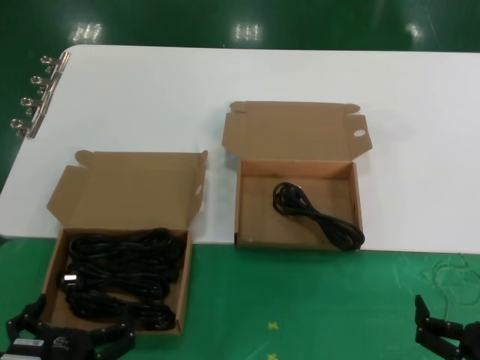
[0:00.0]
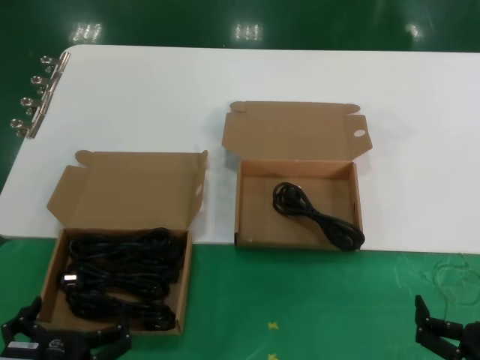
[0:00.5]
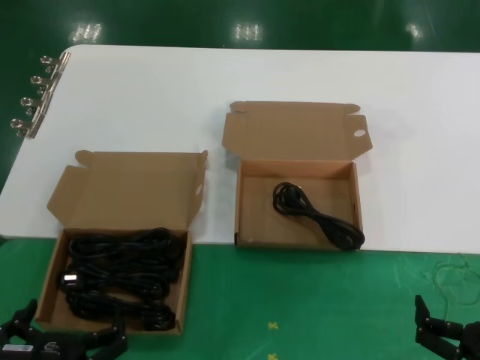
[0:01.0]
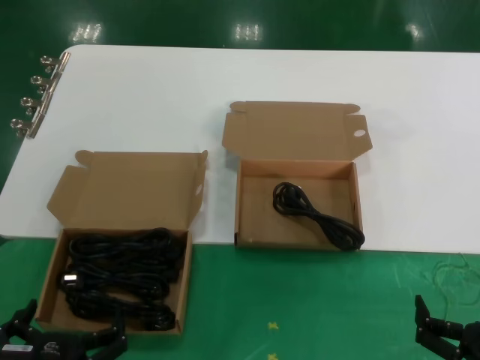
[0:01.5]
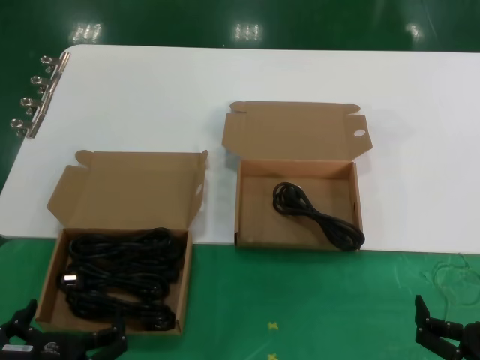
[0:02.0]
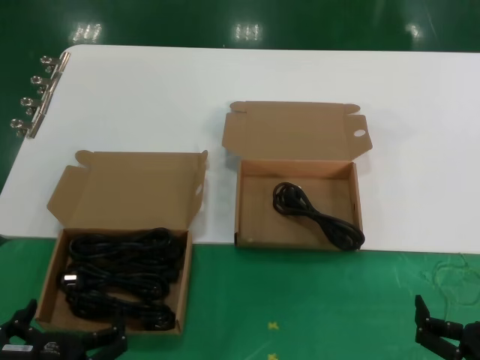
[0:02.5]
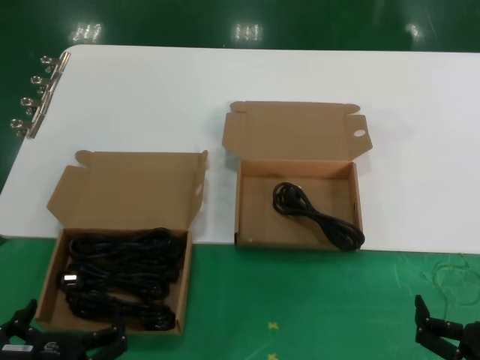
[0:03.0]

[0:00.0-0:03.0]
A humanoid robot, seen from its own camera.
Task of the whole recording: take the parts from the box containing them and put them into an empty box.
0:00.0 to 0:03.0: Both hands stay about where they are.
